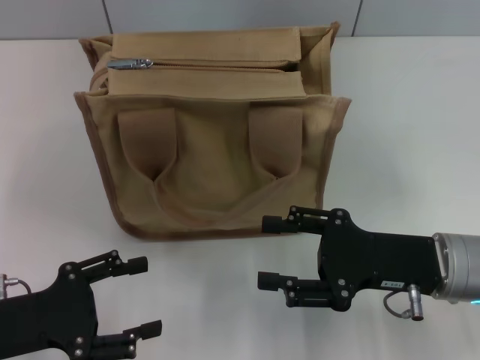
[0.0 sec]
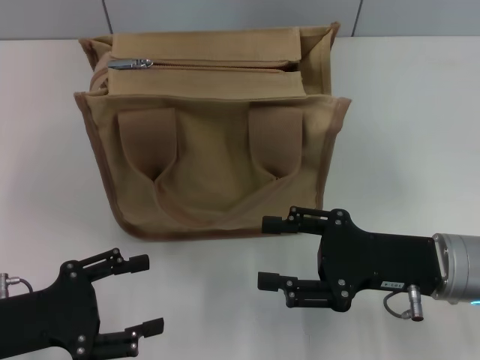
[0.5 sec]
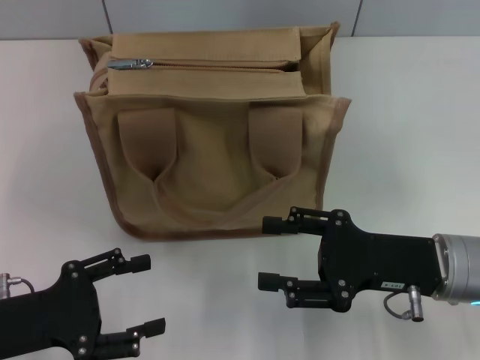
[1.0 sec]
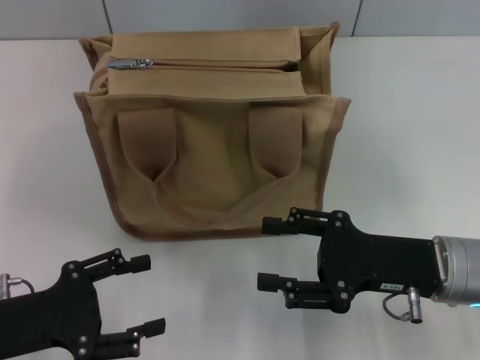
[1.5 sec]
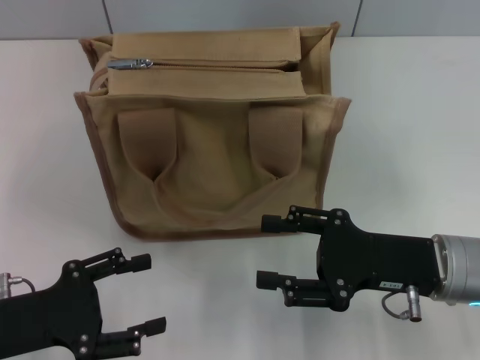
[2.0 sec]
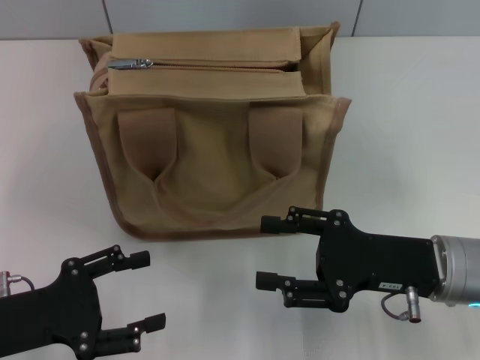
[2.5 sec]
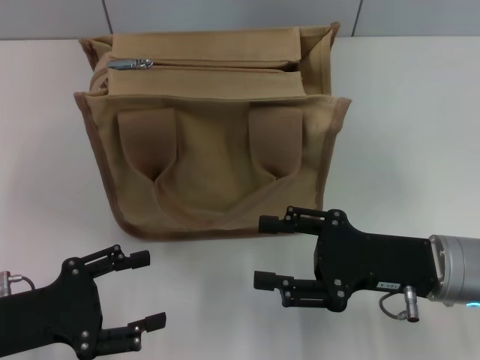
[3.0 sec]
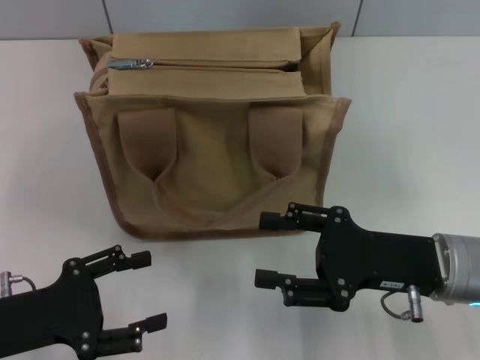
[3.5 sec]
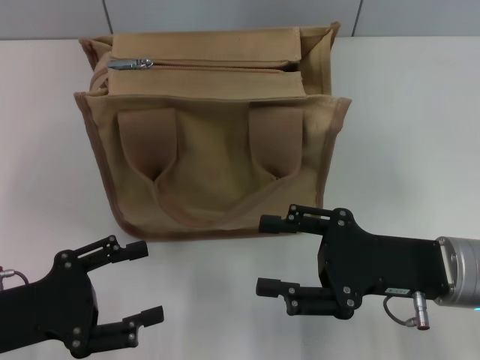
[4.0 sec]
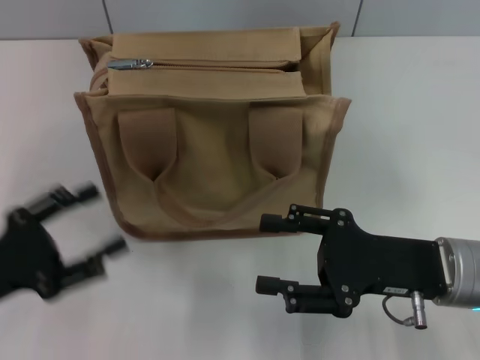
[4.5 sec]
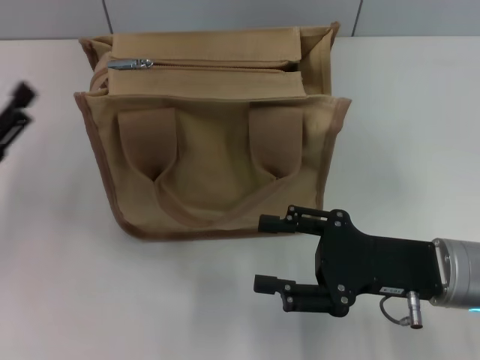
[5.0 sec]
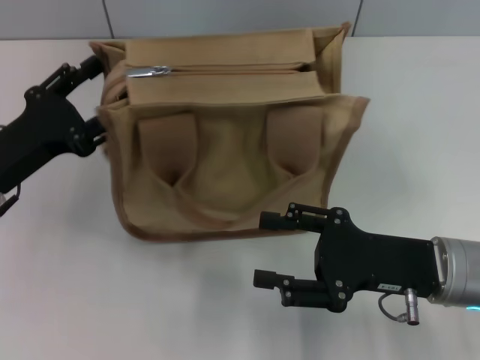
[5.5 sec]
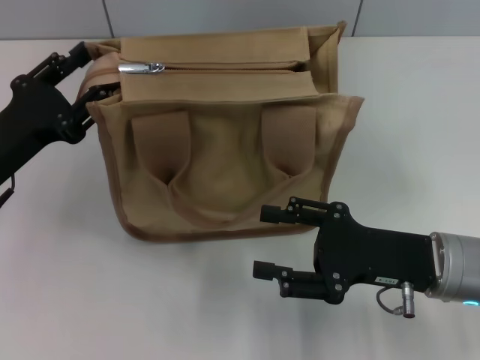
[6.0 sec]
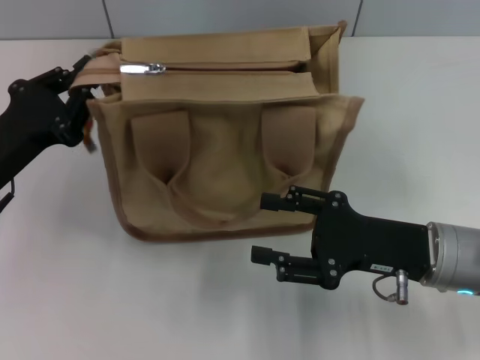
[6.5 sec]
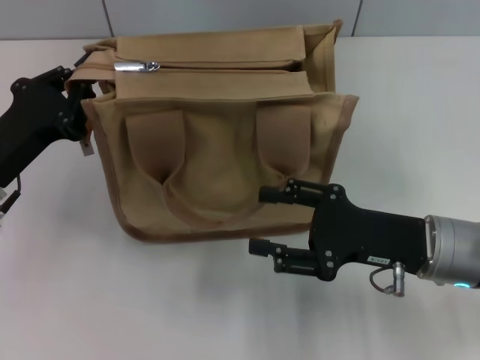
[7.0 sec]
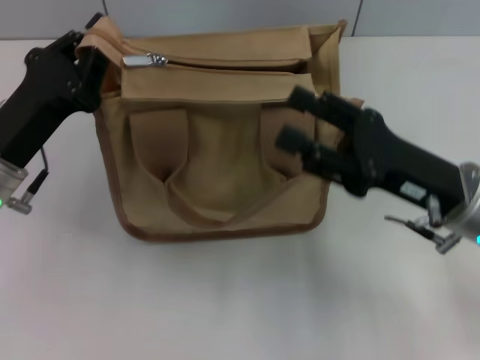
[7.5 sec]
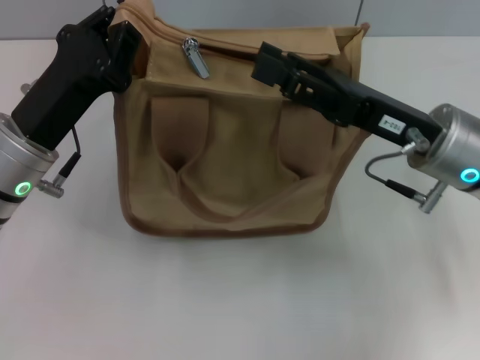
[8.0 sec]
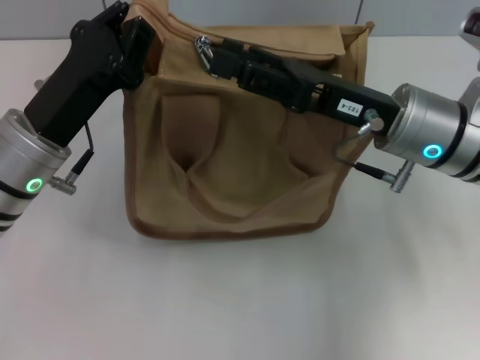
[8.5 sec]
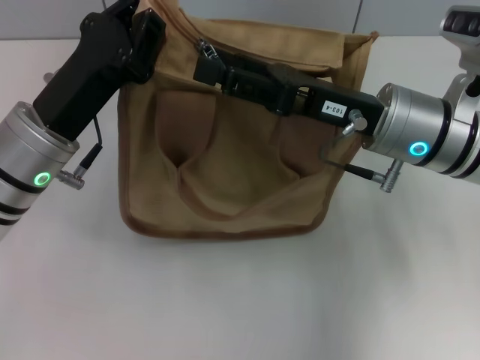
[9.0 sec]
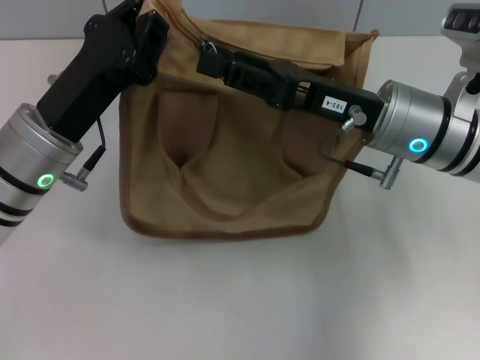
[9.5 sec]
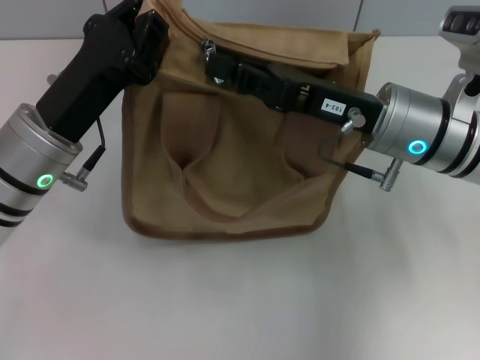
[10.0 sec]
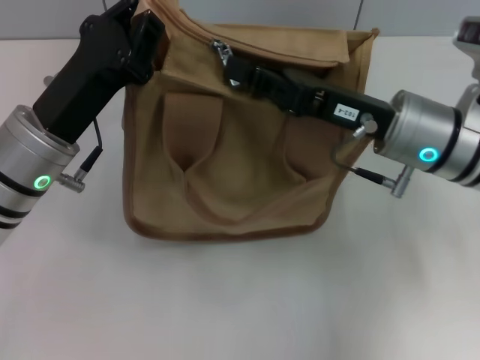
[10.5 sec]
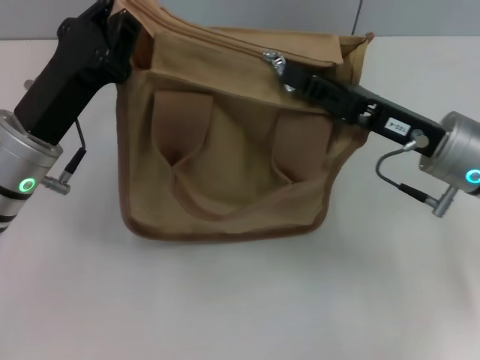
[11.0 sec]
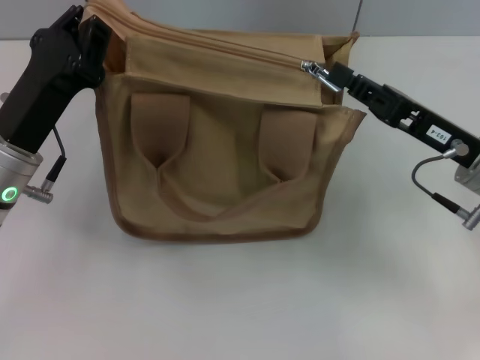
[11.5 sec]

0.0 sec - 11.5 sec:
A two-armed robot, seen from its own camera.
0.0 sec - 2.0 sec: Neither gripper changes place.
2.0 sec - 4.0 sec: The grippers stay close to where they were, moving slightly.
4.0 sec - 6.0 sec: The left gripper heads forward, covering some 10 cm.
6.0 sec - 7.5 sec: The left gripper closes.
7.5 sec - 9.5 sec: The left gripper ends up some 5 cm from where it was. Meanwhile the right gripper goes roughly 10 cm forward and to the left.
9.5 sec - 11.5 sec: The right gripper shifts approximately 10 cm to the right, and closes its fingers.

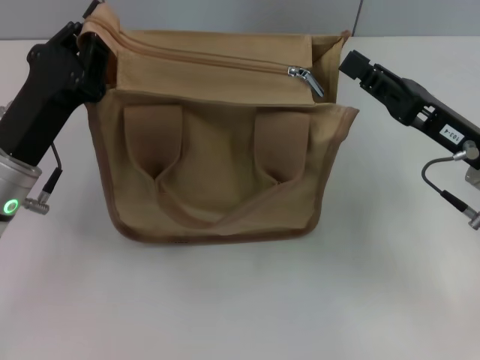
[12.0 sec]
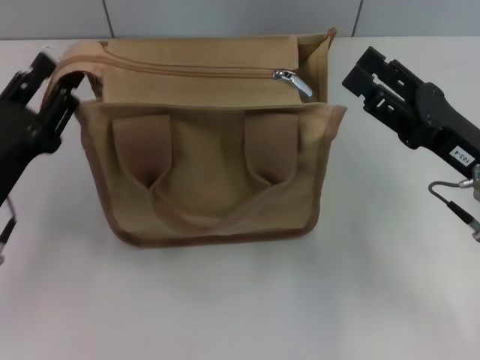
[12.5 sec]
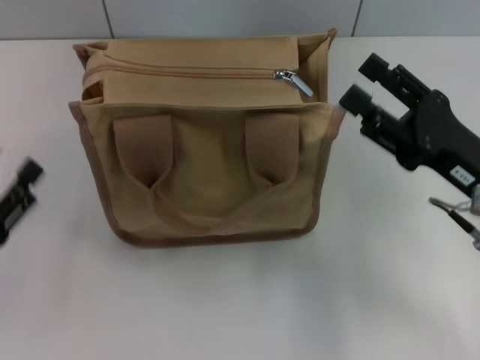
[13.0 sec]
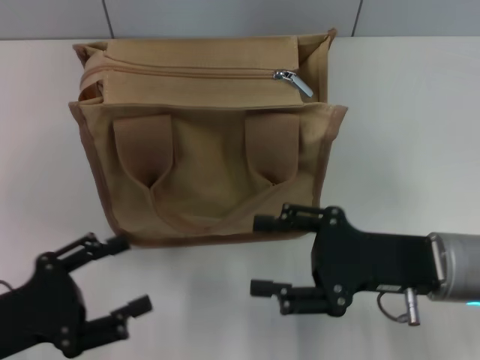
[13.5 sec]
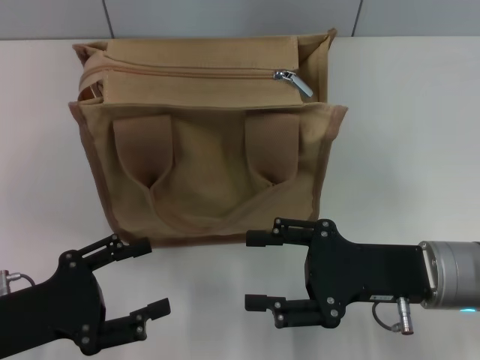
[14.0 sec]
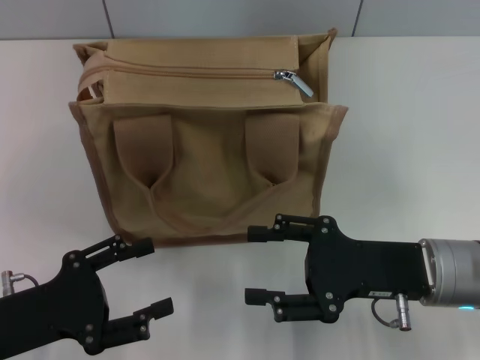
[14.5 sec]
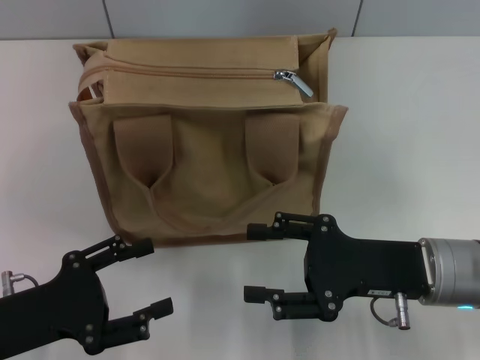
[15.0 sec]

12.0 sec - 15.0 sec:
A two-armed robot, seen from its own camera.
Step, 12.0 sec - 12.5 sec: Grab the zipper with your left hand.
12.0 sec - 13.5 sec: The right gripper goes about 5 cm backward, and opens up; the left gripper shifts about 15 cm backward and to the left, and opens up.
13.5 sec - 15.0 sec: The grippers stay close to where they were, moving slightly.

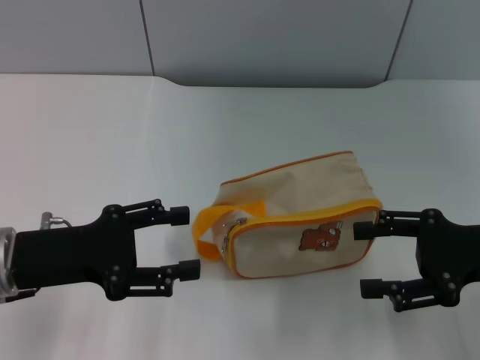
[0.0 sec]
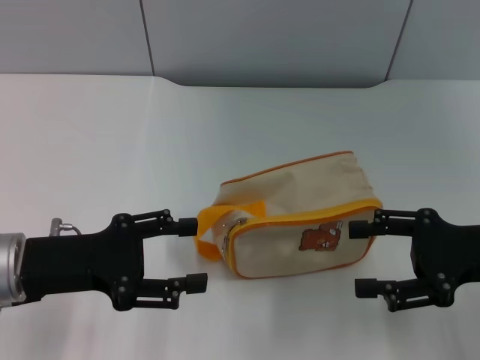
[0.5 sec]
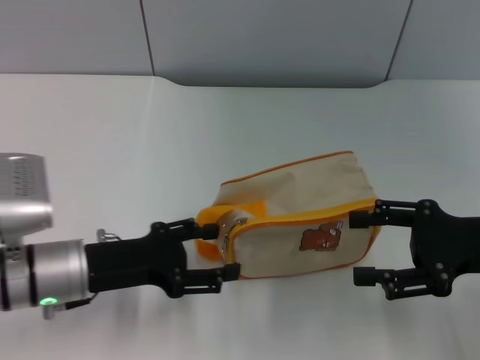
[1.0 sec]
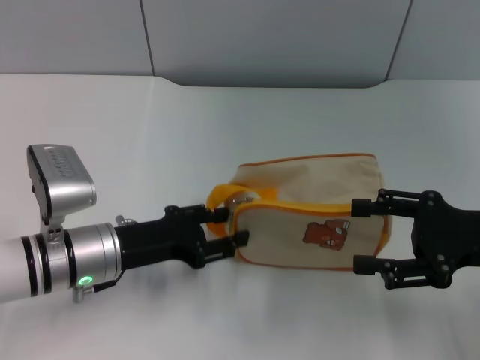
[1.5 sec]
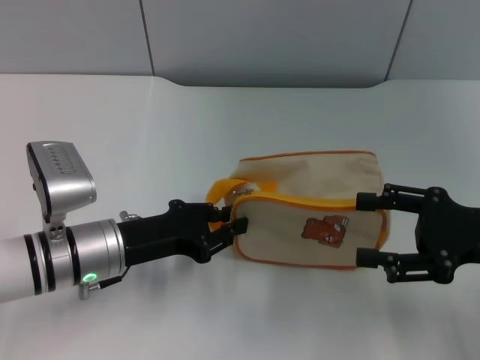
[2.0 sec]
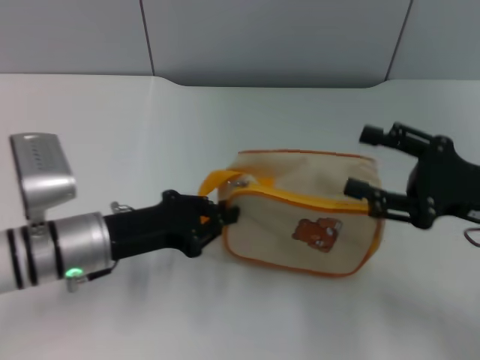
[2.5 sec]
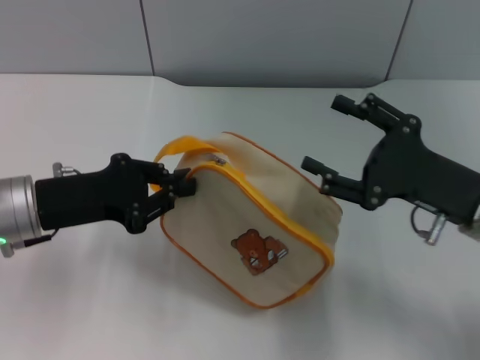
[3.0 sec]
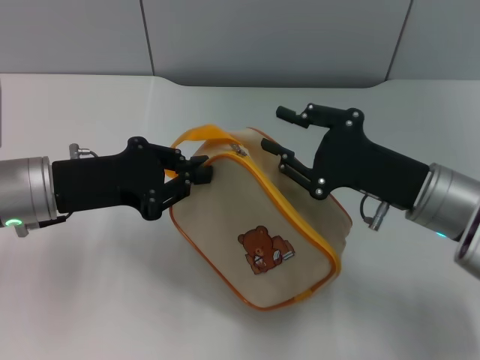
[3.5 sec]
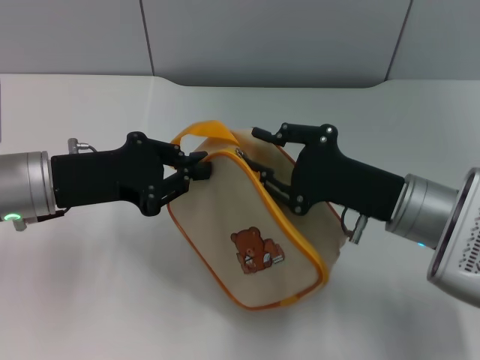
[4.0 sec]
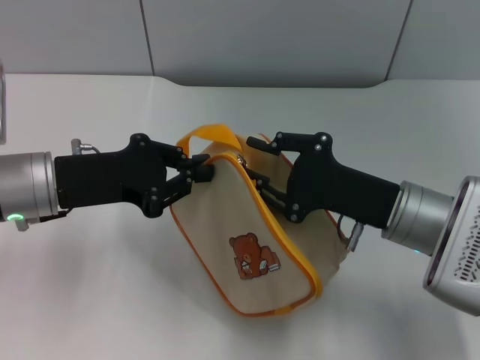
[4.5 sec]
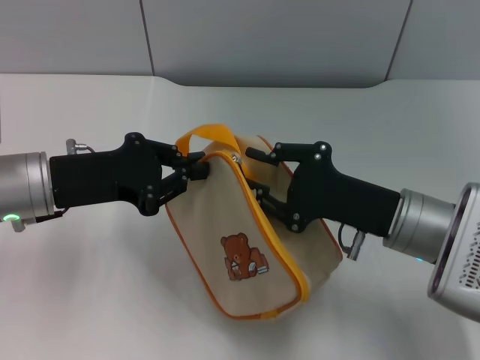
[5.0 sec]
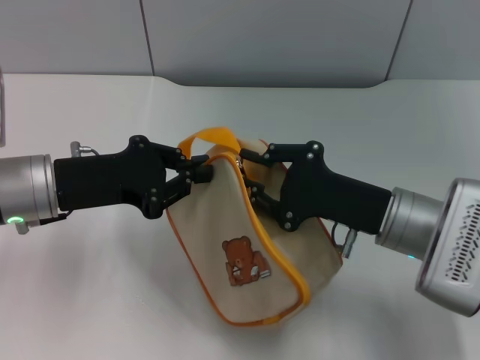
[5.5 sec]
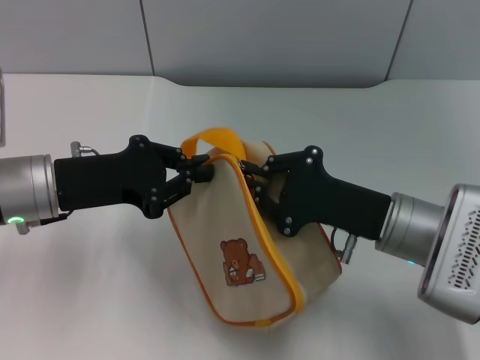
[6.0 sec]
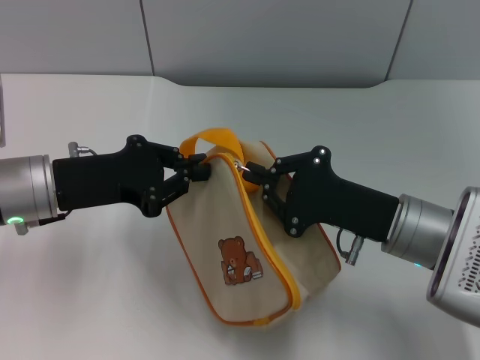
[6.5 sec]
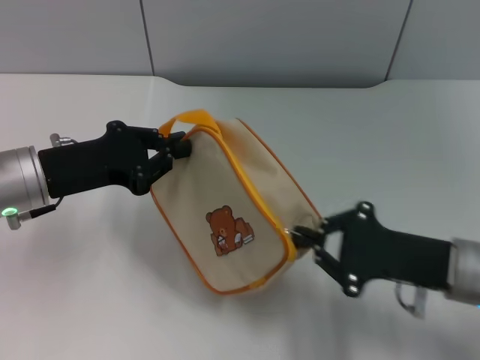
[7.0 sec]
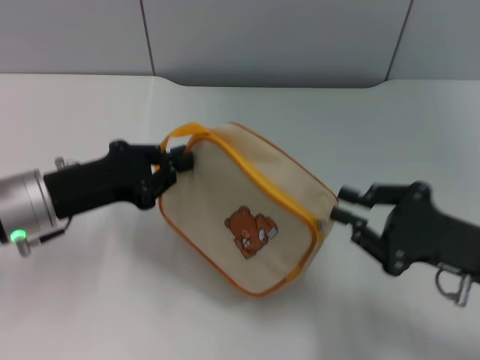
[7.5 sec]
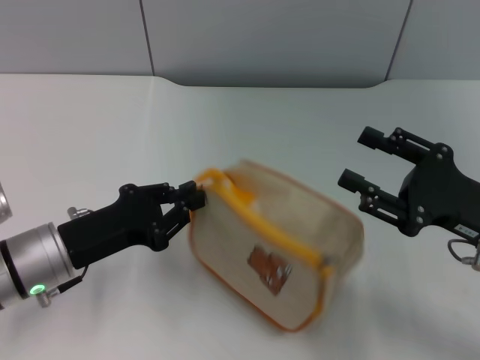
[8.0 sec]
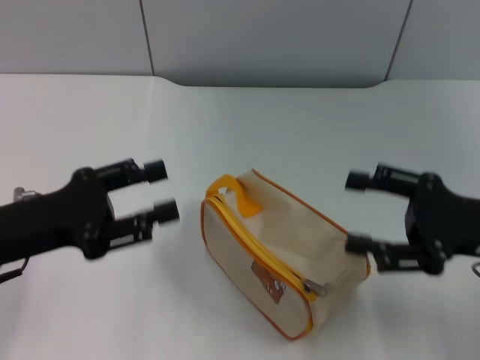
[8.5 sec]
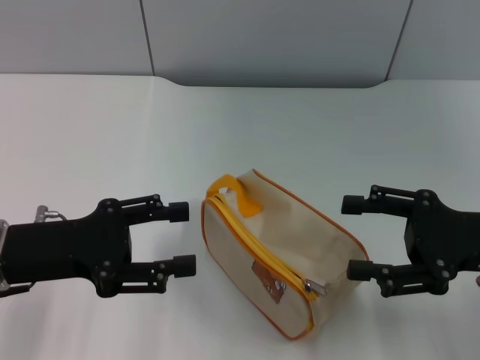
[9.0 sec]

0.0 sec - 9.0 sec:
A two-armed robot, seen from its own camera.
Step, 0.0 sec - 2.5 sec: Pick up the bag with left gripper.
Step, 3.0 sec - 7.5 sec: Unzip the zipper of bag with right gripper.
0.0 sec - 2.0 sec: The left gripper heads to the right and downward, covering some 10 cm, and closes its fingers.
2.0 sec - 4.5 sec: The right gripper heads to the left, covering approximately 10 cm, and closes up, while the left gripper is displaced upward by some 10 cm.
4.5 sec - 7.0 sec: The right gripper goes roughly 5 cm to the right, and closes.
7.0 sec - 9.0 sec: The right gripper shifts approximately 5 cm upward, and opens; the left gripper is displaced backward by roughly 5 cm, and opens up.
